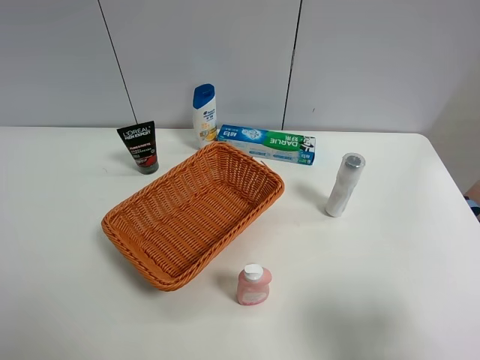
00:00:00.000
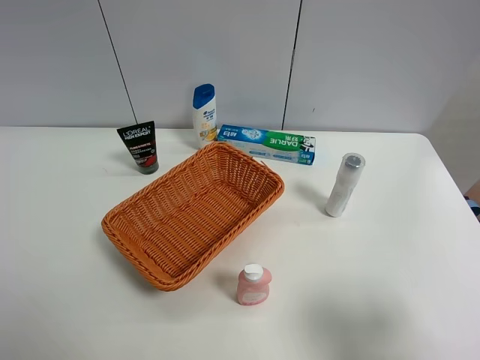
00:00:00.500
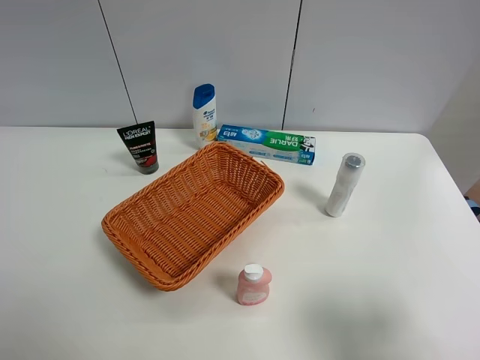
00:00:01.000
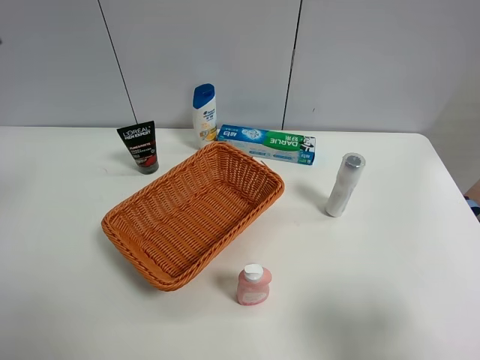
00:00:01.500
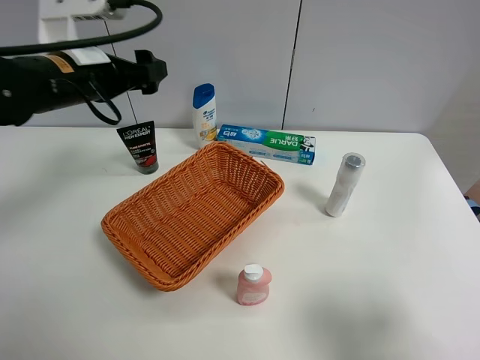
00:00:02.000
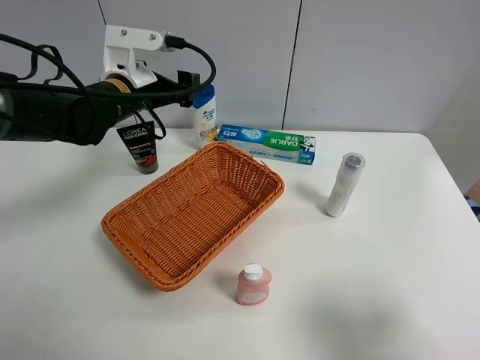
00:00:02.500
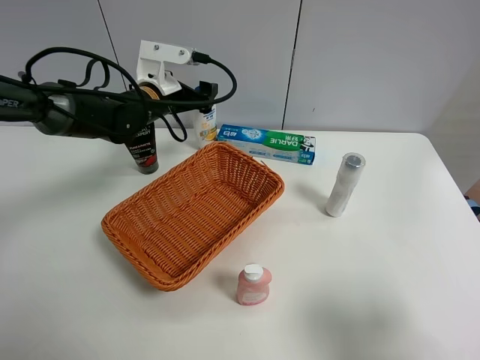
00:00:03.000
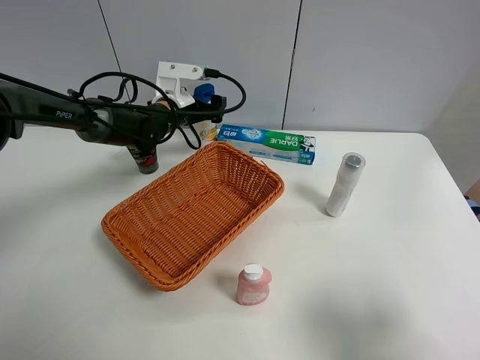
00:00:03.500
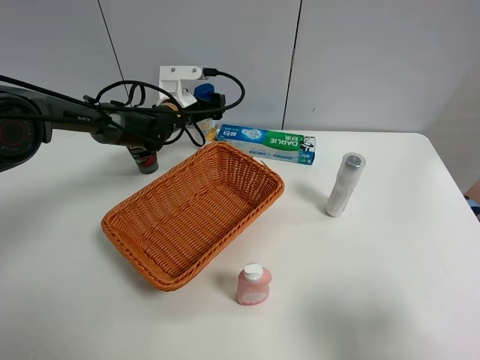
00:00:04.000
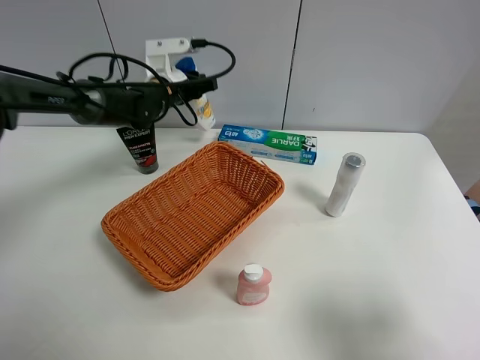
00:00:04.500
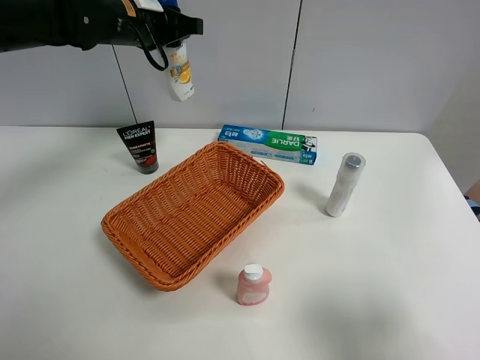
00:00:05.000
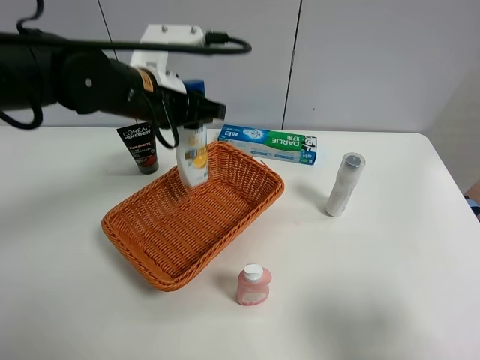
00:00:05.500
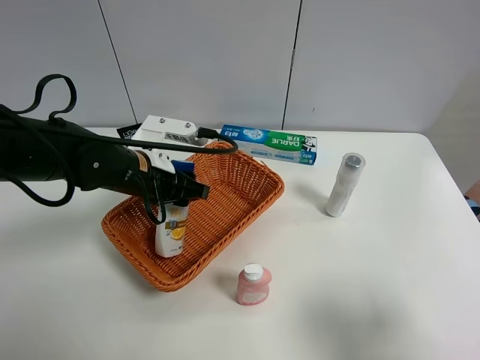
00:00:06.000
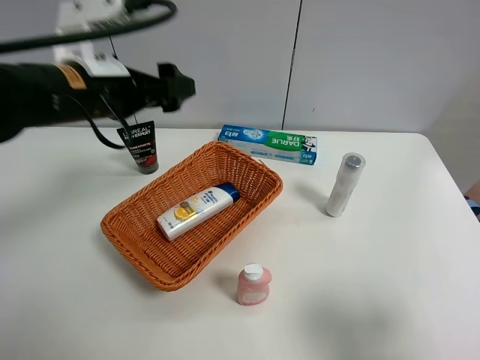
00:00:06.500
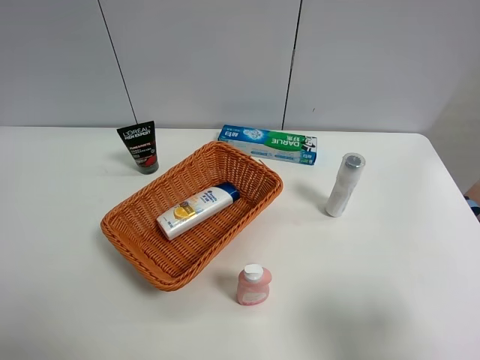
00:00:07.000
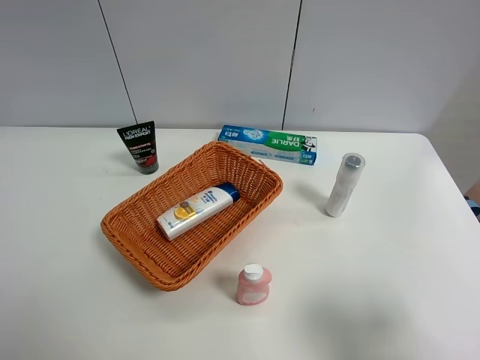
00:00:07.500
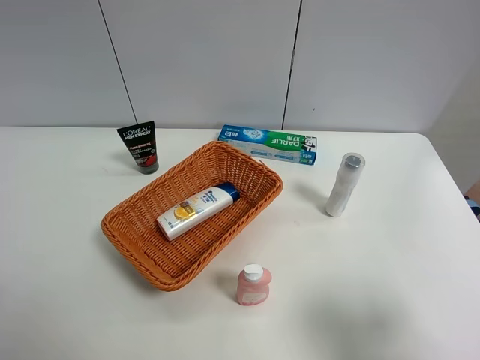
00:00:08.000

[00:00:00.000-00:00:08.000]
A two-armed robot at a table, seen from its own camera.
Task of the whole recording: Place the object closest to the toothpaste in the basket.
Step, 00:00:00.000 to 00:00:04.000: Grasp the shampoo with left gripper.
Step, 00:00:04.500 to 00:00:06.000: Place the shampoo in the basket with left gripper.
00:00:00.000 to 00:00:02.000: The left gripper heads forward, covering some 35 cm.
00:00:02.000 to 00:00:04.000: The left gripper is displaced downward, forward and to the right by some 25 cm.
00:00:04.000 to 00:00:06.000: The left gripper is displaced backward by about 20 cm, and closes, then opens again.
00:00:06.000 to 00:00:08.000: The left gripper shifts some 35 cm backward and to the left, and opens up.
